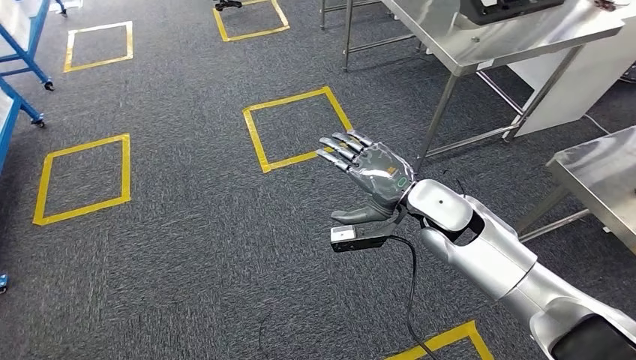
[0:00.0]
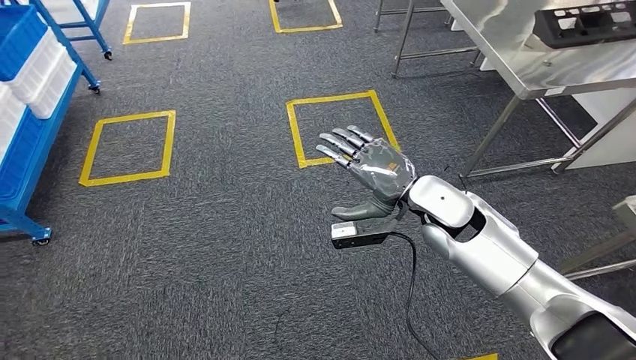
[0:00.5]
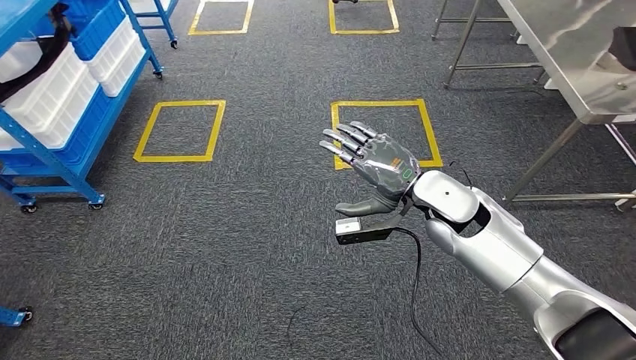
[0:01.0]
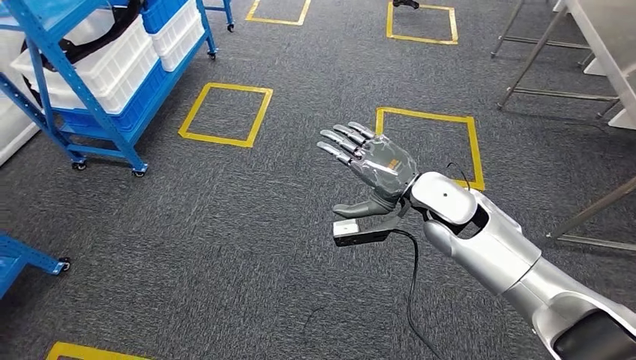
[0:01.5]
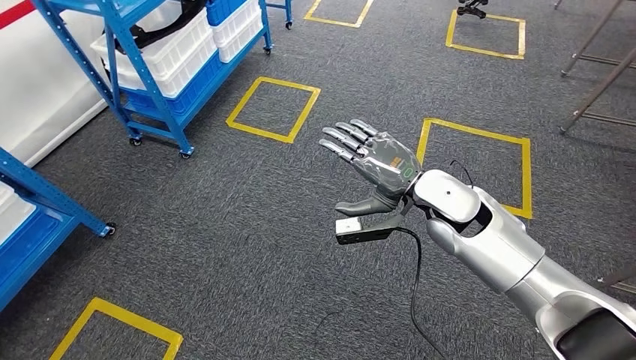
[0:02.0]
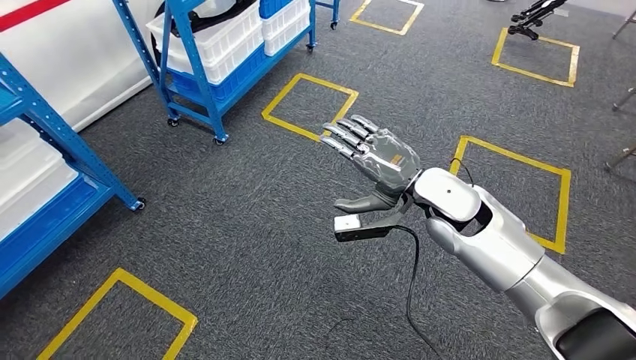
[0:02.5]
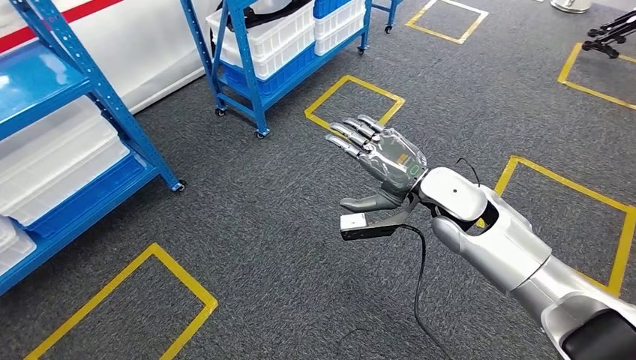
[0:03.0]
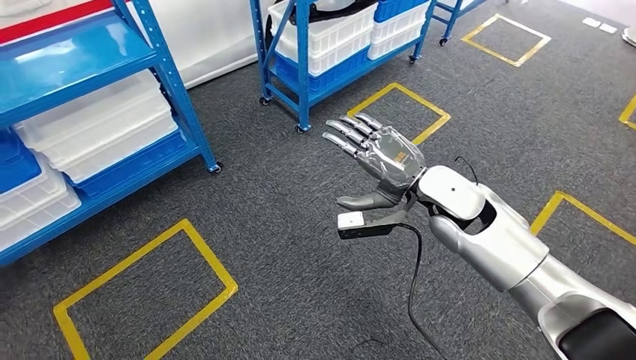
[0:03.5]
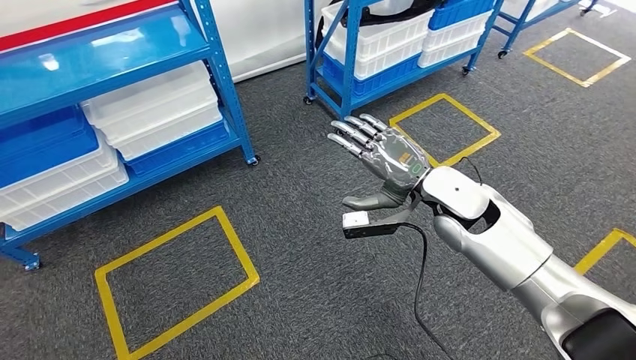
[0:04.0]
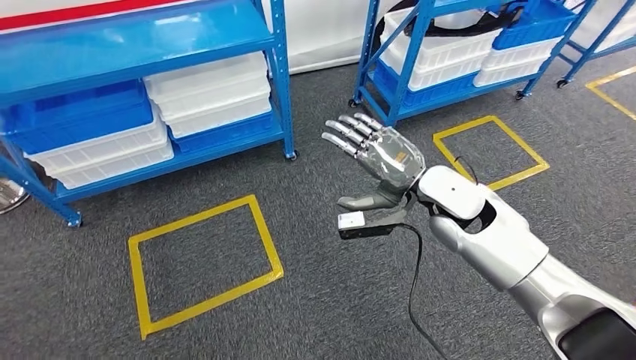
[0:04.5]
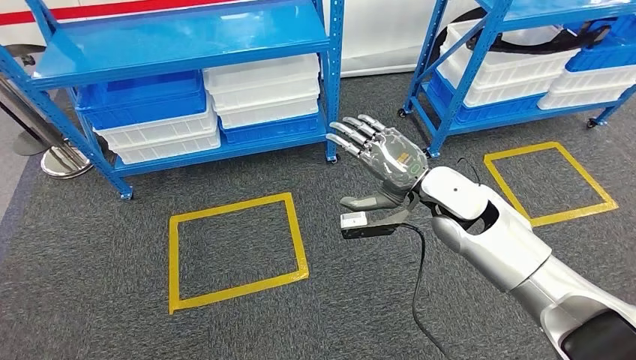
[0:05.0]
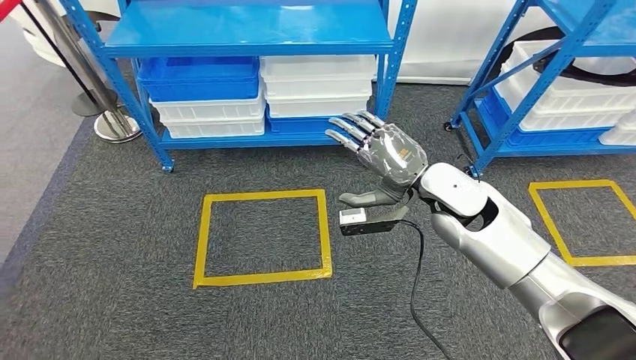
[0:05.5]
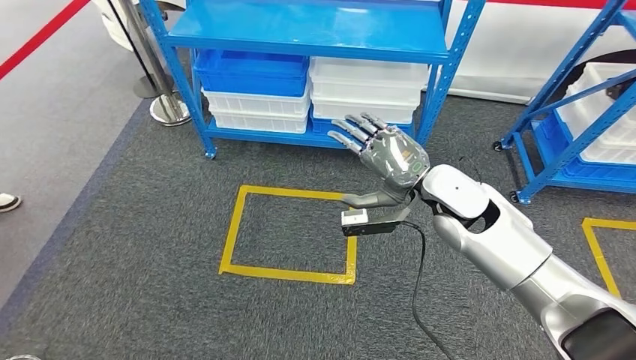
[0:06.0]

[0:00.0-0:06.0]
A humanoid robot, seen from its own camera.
Step, 0:00.0 to 0:06.0: Return to the initial position at the shelf.
